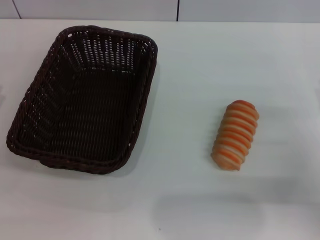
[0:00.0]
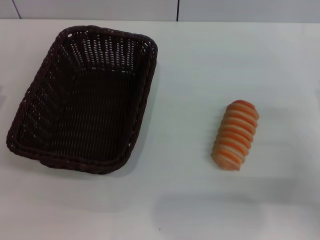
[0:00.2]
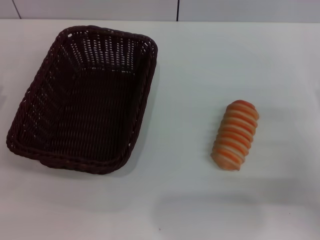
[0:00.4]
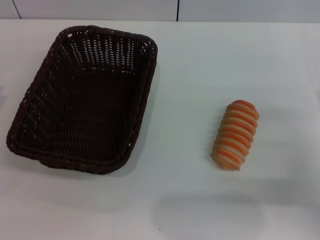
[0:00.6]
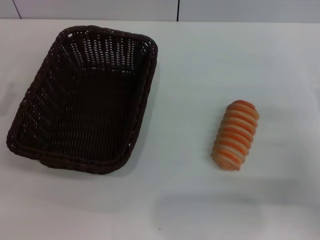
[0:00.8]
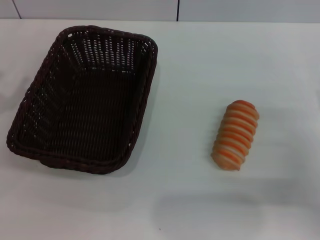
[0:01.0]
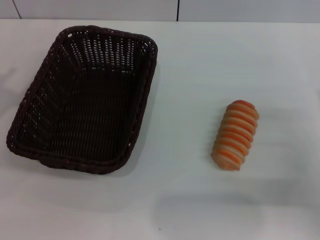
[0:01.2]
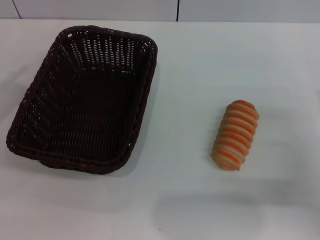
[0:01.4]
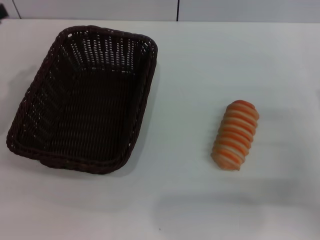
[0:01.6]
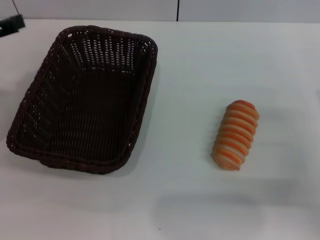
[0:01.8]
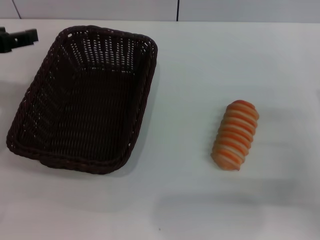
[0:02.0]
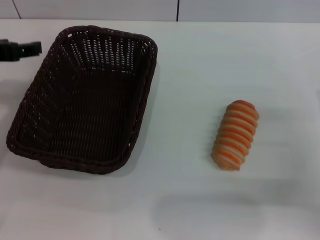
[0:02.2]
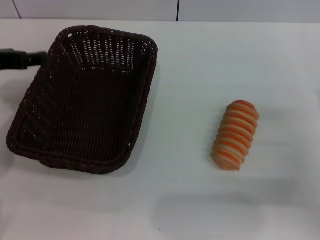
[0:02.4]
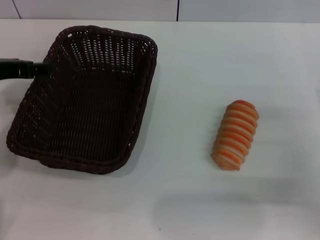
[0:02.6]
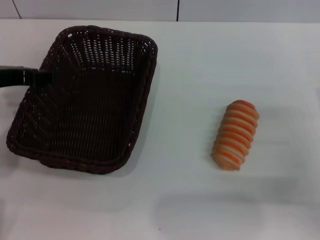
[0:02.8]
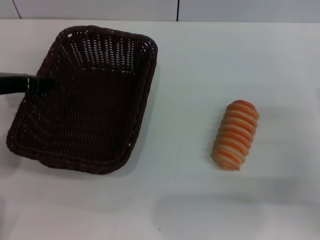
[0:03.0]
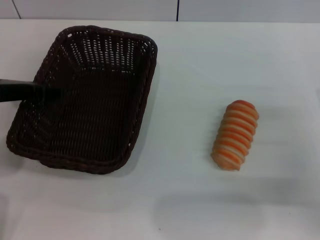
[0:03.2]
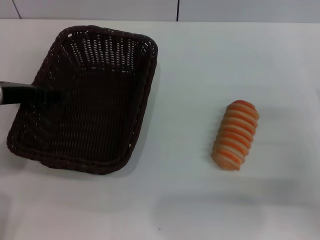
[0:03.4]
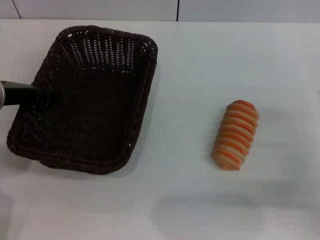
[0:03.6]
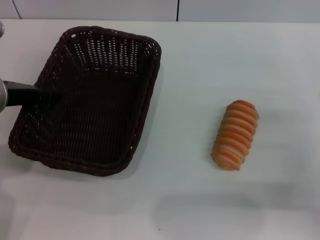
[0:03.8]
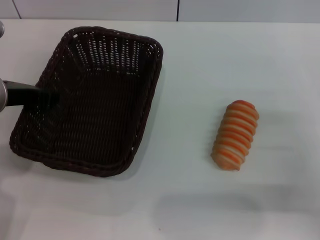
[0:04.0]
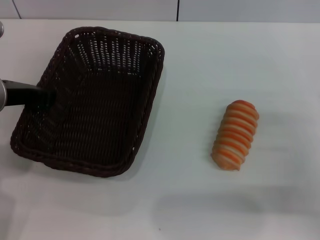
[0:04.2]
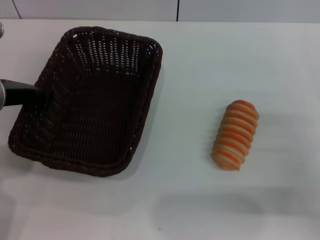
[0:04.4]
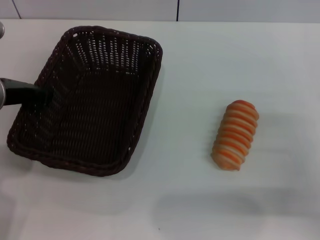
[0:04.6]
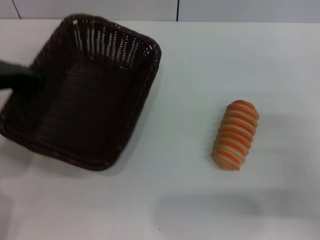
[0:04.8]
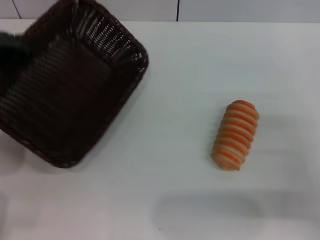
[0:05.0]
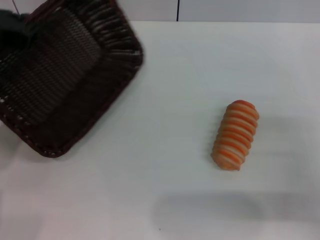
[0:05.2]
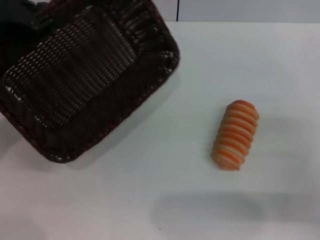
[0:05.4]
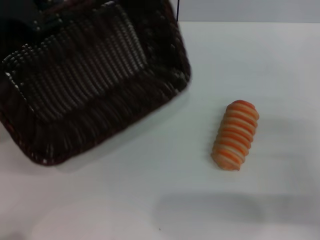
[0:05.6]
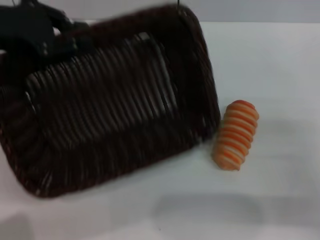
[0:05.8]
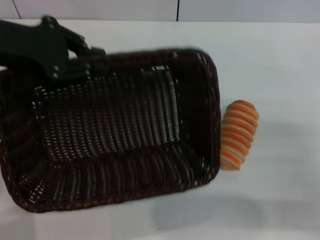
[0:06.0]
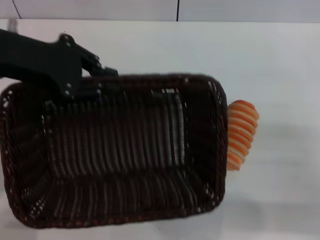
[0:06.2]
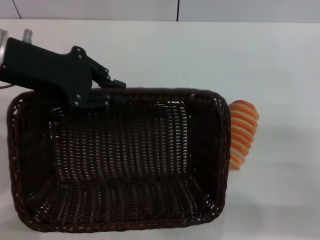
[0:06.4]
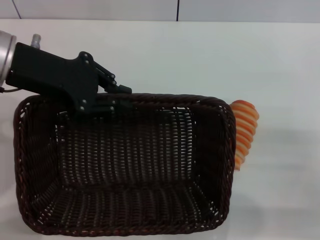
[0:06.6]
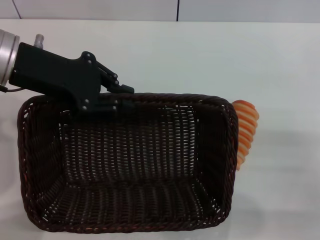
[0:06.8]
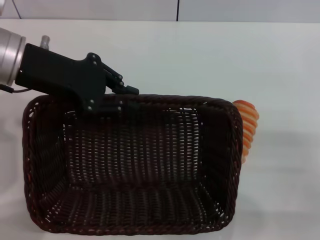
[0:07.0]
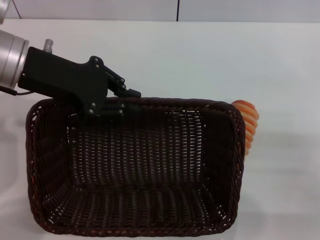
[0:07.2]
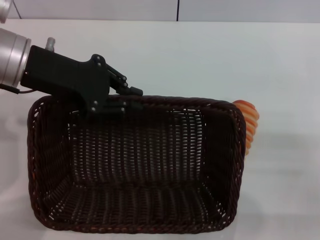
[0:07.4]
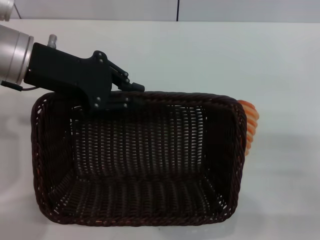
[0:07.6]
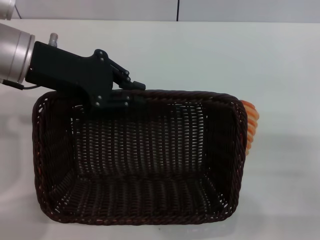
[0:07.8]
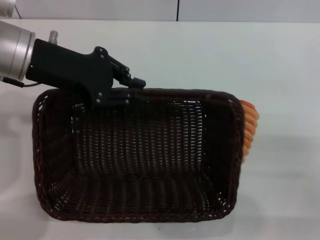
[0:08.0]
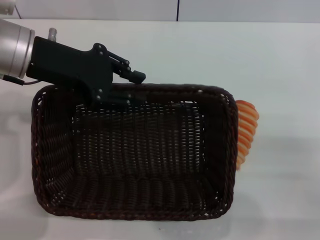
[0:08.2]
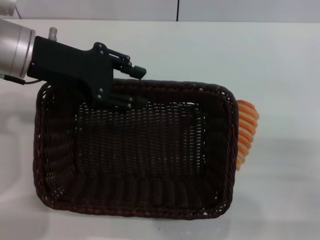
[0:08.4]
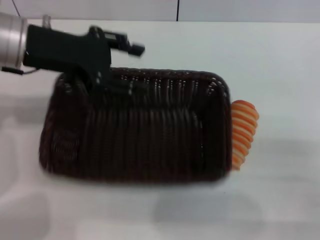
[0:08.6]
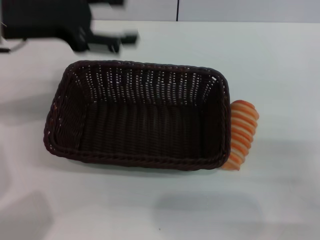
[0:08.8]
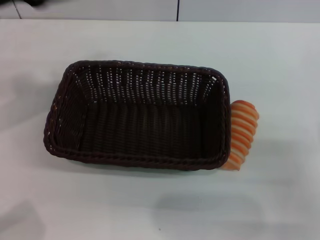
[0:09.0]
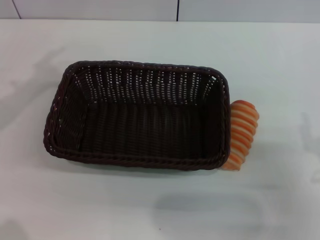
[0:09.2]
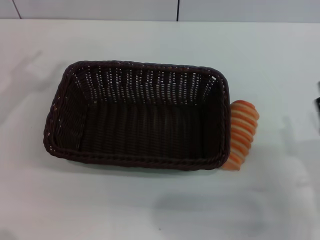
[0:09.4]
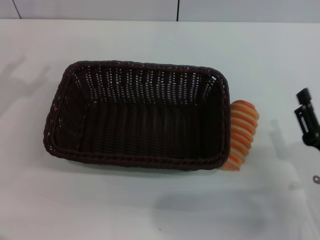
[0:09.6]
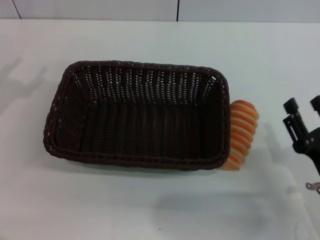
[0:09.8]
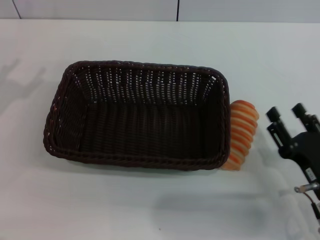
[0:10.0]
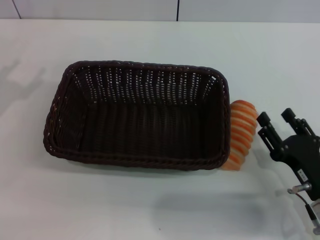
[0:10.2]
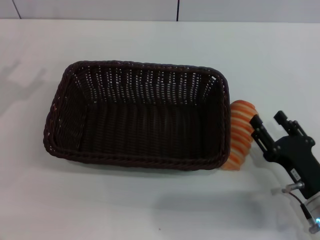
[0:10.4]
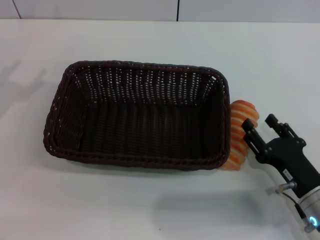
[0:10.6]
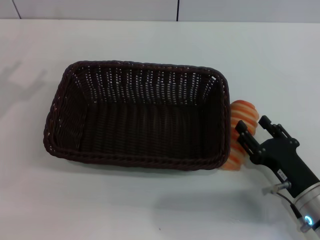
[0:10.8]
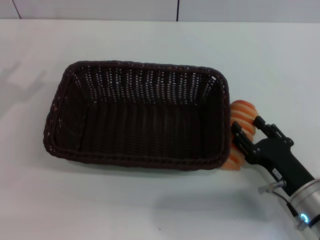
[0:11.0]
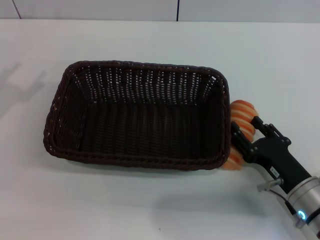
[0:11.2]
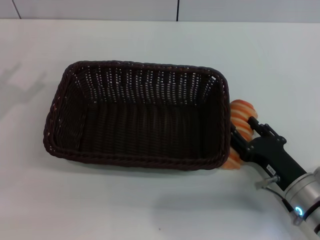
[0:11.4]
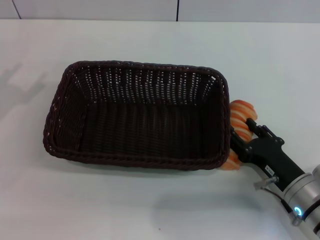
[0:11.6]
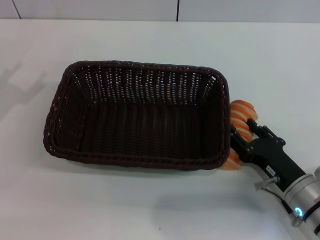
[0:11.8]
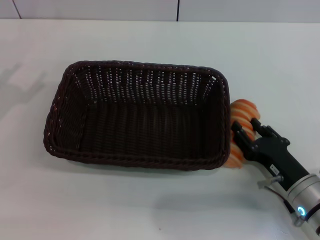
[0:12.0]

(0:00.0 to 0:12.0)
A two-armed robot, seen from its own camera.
Step, 0:00.0 - 0:05.0: Pick up the dark basket with the left gripper.
Step, 0:05.2 - 0:08.8: Place the dark basket in the center of view with the left gripper.
0:01.6 - 0:03.0: The left gripper heads to the right, covering some 10 cm.
0:03.0 - 0:04.4: The left gripper closes.
0:04.4 - 0:06.0: The left gripper shifts about 10 cm upward.
0:06.0 - 0:07.6: The left gripper shifts by roughly 5 cm.
0:07.6 - 0:09.0: The left gripper is displaced to the left by about 10 cm, and opens its fingers.
0:09.0 - 0:10.4: The left gripper heads downward, to the left and backward, covering approximately 15 cm. Meanwhile the right gripper is displaced to the left and downward by approximately 10 cm.
0:10.4 - 0:12.0: The grippers stay close to where they were, moving slightly.

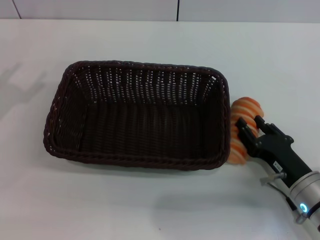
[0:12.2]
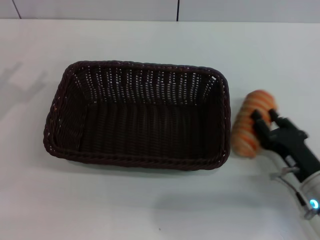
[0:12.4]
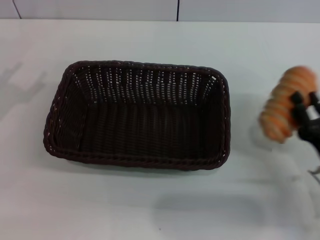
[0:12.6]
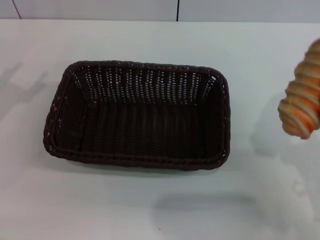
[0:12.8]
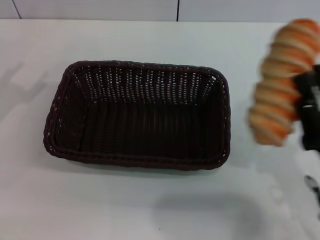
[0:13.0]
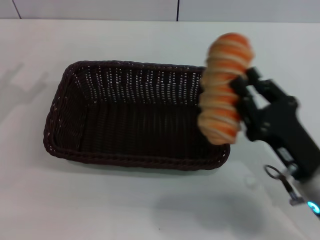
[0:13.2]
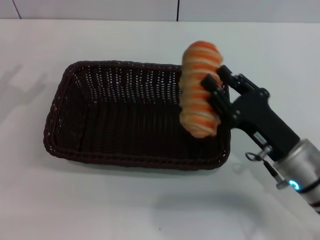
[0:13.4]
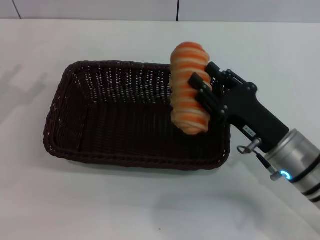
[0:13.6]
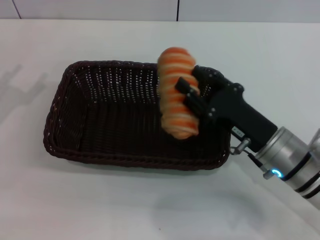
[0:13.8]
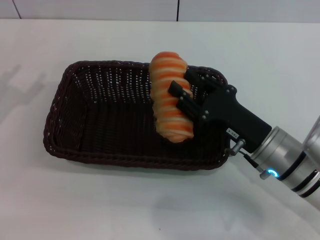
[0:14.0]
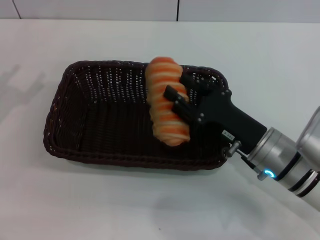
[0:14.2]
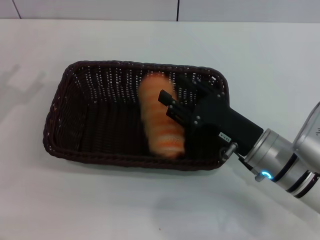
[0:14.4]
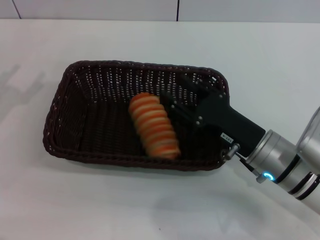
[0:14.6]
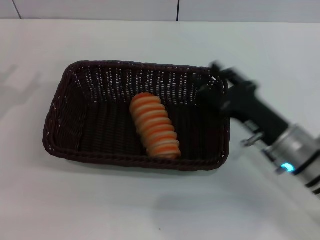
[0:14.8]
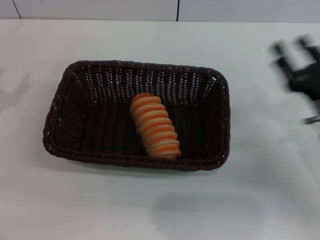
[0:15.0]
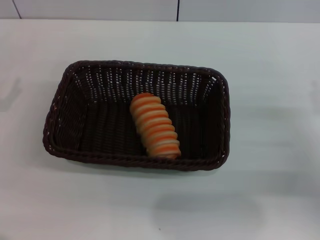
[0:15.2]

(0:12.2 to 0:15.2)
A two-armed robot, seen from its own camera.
Step, 0:12.8 - 0:14.4: Place the long bread into the dark basket with the right gripper.
0:12.2 - 0:13.8: The right gripper heads upward and to the left, covering some 10 cm, and closes, then opens again.
0:13.8 - 0:15.2: The left gripper travels downward by roughly 5 cm. The right gripper goes about 15 cm to the right, and opens up.
